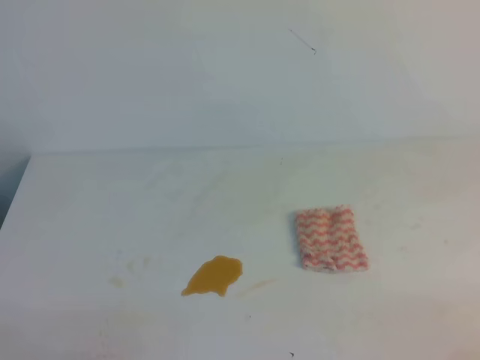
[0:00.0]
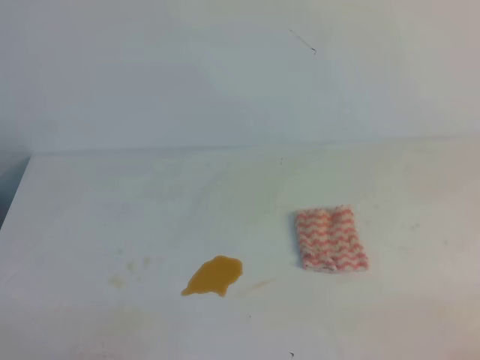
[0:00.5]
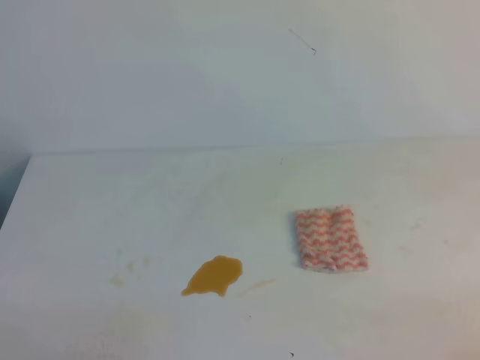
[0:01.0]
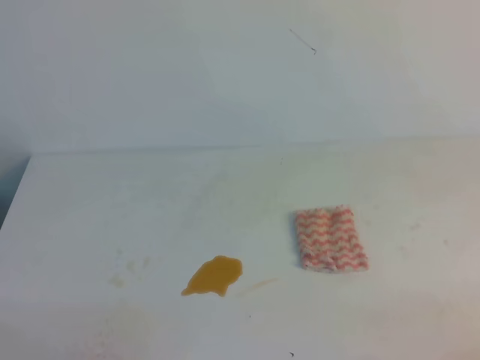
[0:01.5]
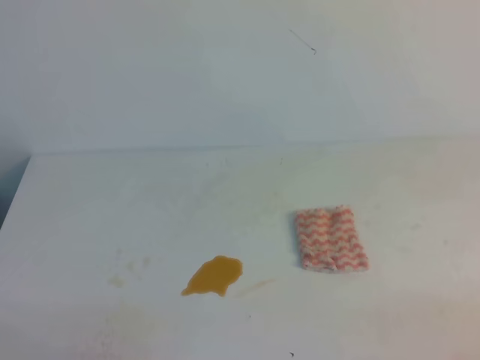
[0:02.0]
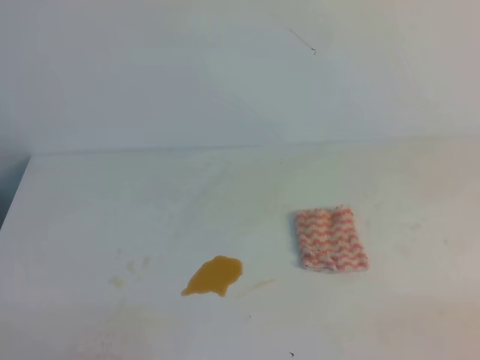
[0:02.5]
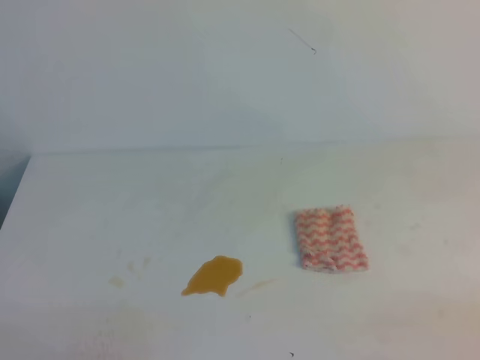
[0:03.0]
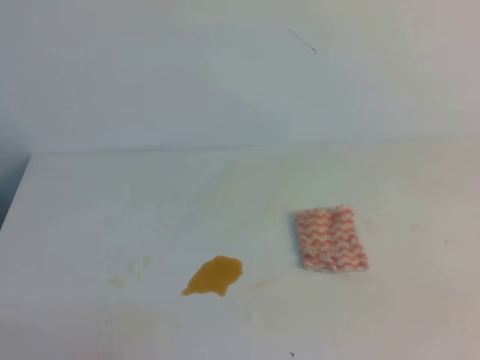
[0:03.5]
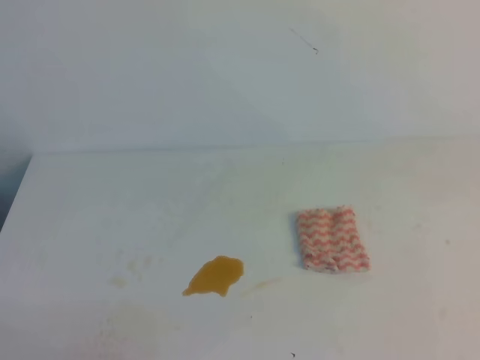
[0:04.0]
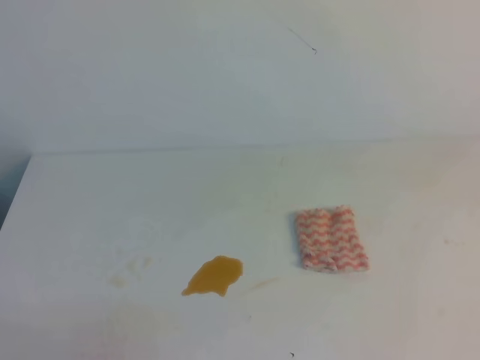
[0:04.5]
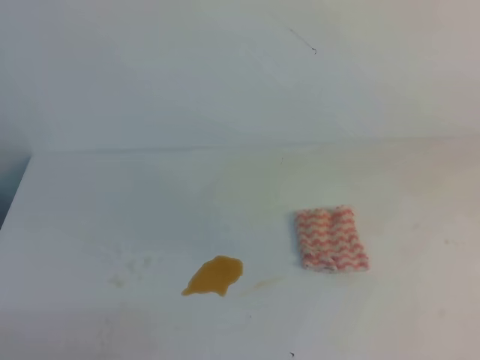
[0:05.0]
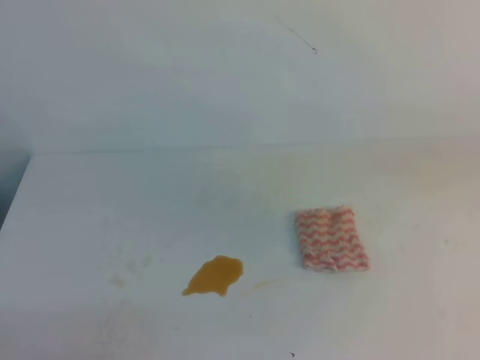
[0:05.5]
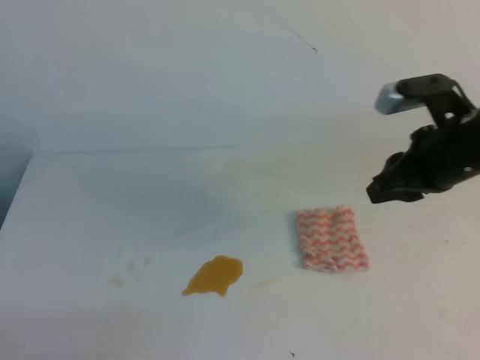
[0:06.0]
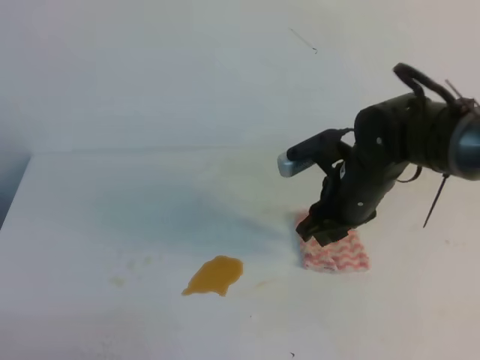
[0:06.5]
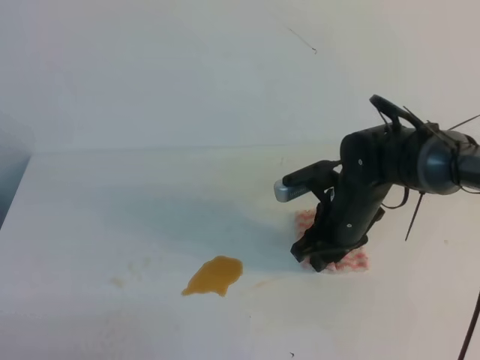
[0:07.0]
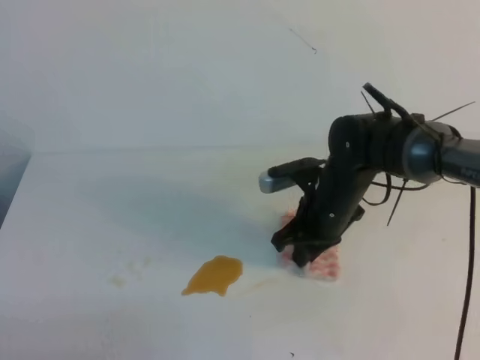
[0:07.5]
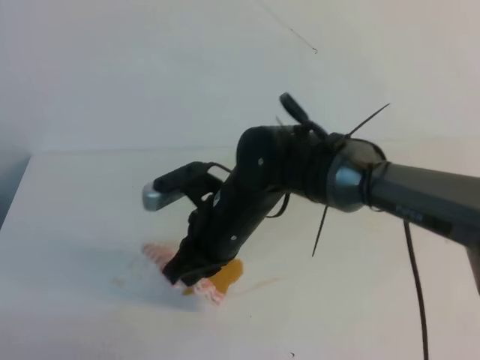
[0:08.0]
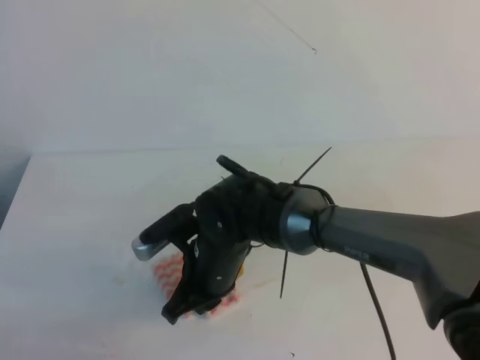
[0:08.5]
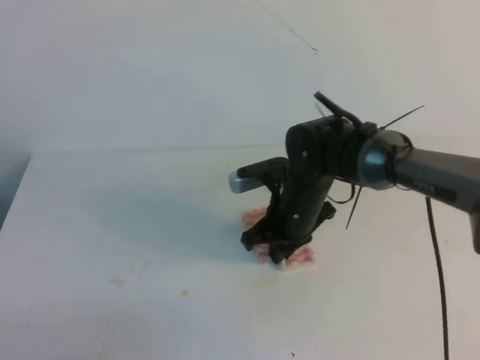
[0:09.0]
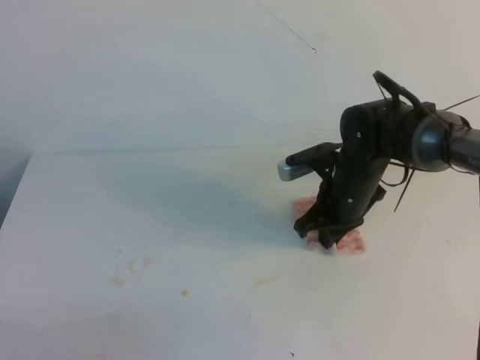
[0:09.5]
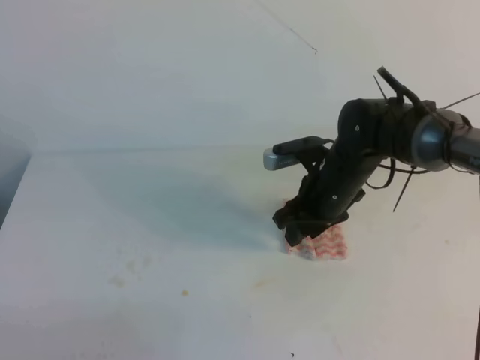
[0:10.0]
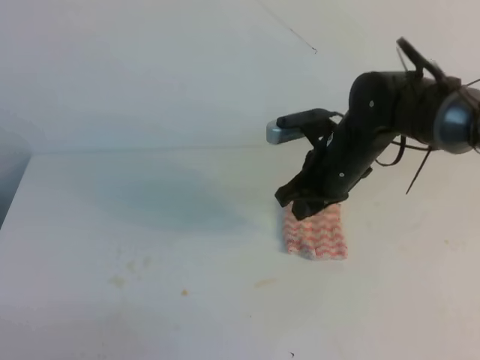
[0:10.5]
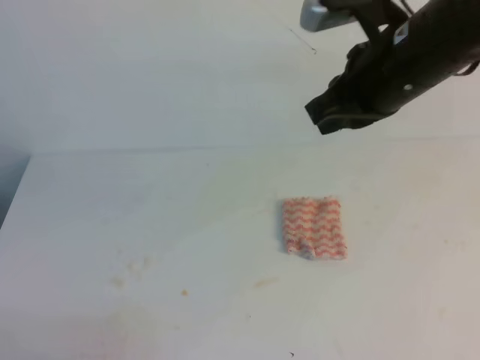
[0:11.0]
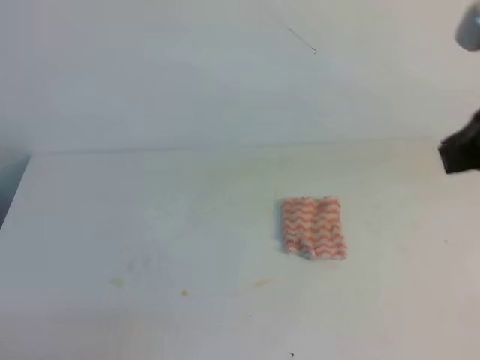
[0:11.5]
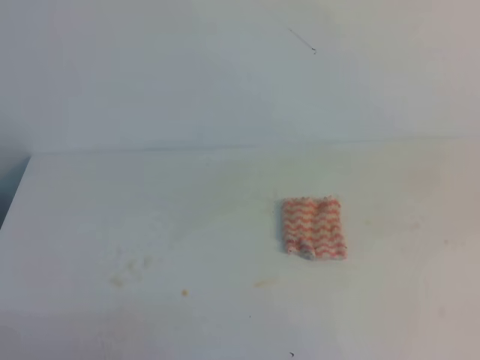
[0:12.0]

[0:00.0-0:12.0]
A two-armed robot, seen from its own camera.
0:04.0 to 0:06.0: The right gripper travels forward by approximately 35 cm, and opens up.
0:06.0 to 0:08.0: The right gripper goes approximately 25 cm to the left, and closes its fingers.
0:08.0 to 0:10.0: The right gripper shifts roughly 15 cm to the right and forward, and opens.
0:10.0 to 0:12.0: The right gripper travels backward, to the right and upward by some 40 cm, and closes up.
